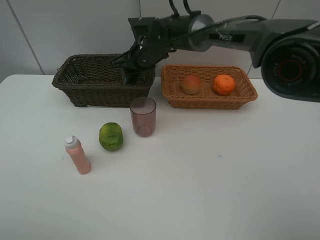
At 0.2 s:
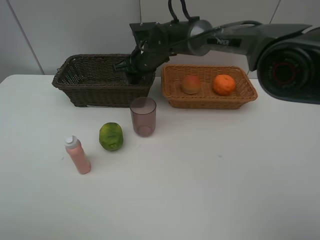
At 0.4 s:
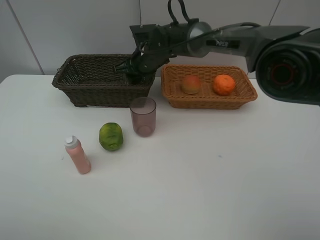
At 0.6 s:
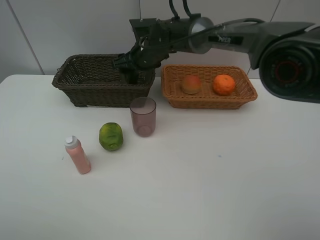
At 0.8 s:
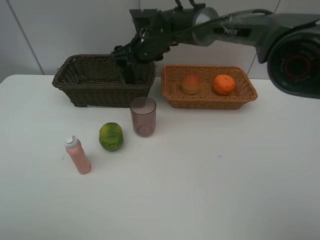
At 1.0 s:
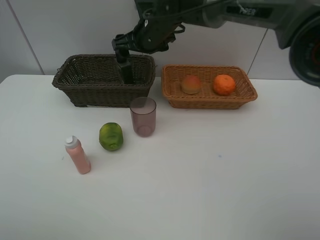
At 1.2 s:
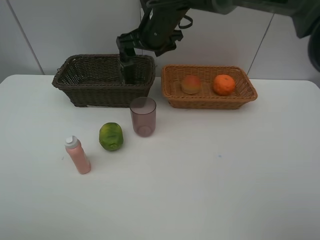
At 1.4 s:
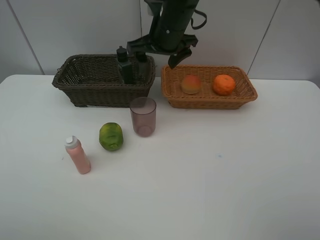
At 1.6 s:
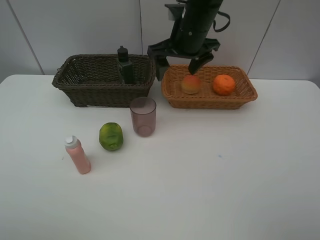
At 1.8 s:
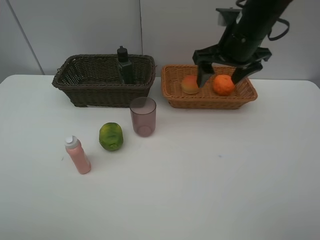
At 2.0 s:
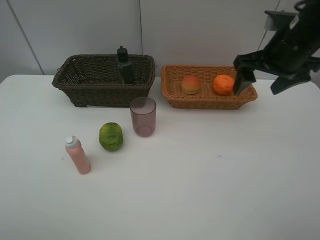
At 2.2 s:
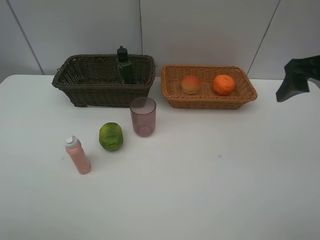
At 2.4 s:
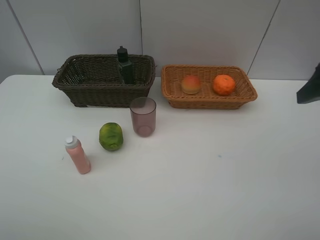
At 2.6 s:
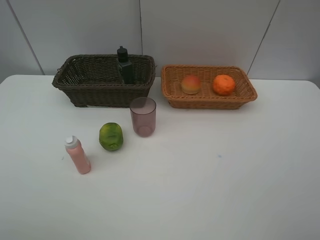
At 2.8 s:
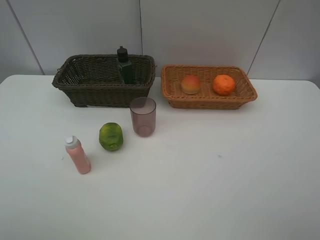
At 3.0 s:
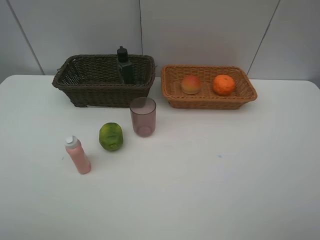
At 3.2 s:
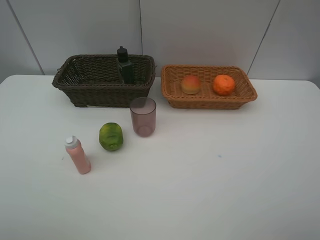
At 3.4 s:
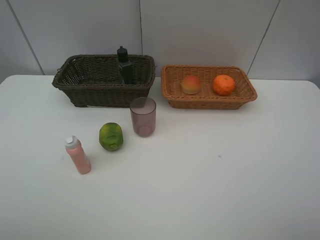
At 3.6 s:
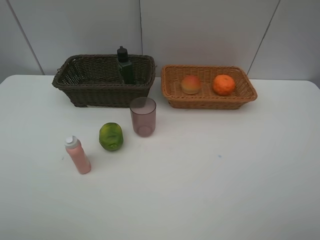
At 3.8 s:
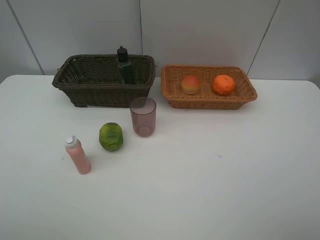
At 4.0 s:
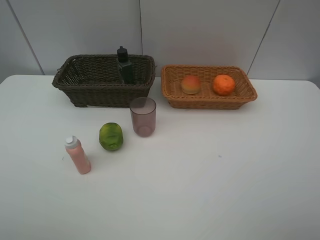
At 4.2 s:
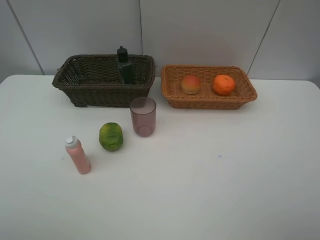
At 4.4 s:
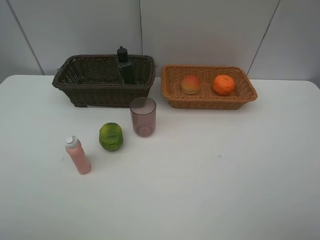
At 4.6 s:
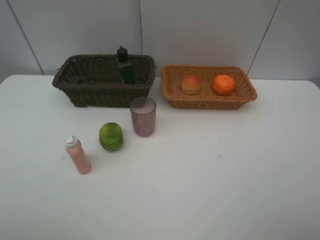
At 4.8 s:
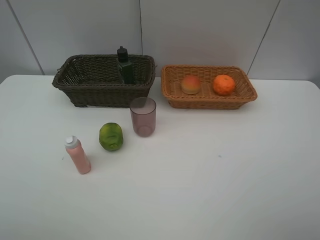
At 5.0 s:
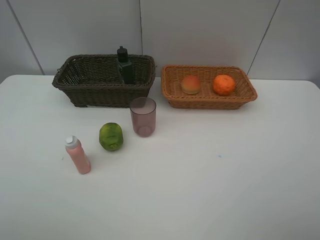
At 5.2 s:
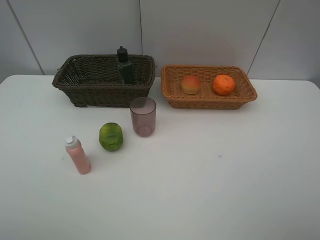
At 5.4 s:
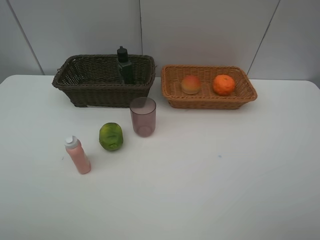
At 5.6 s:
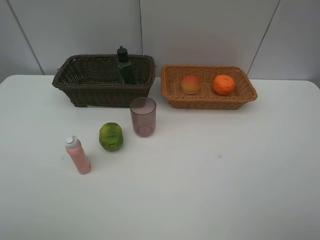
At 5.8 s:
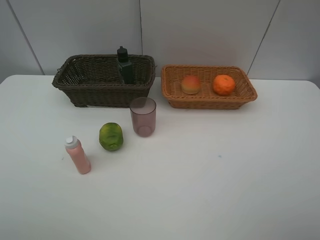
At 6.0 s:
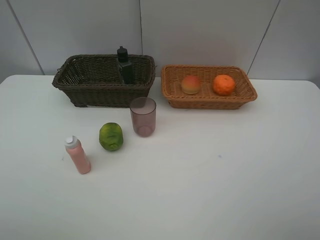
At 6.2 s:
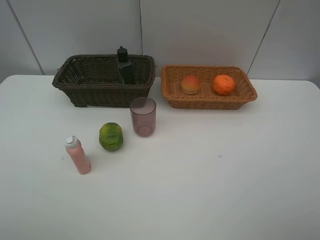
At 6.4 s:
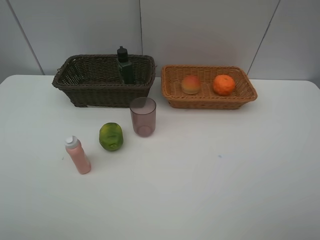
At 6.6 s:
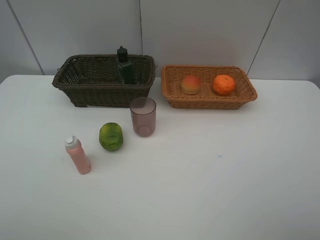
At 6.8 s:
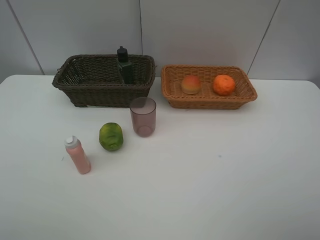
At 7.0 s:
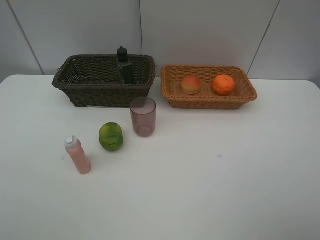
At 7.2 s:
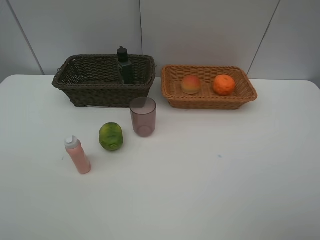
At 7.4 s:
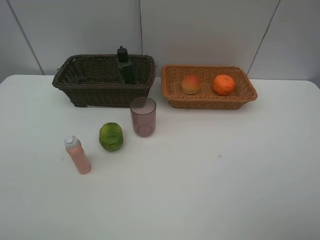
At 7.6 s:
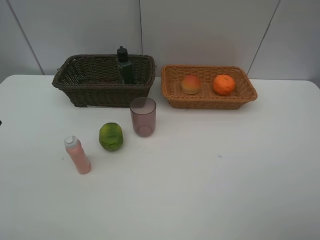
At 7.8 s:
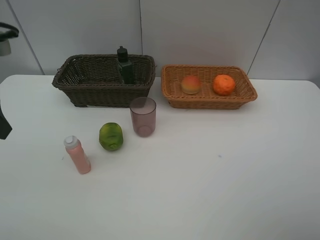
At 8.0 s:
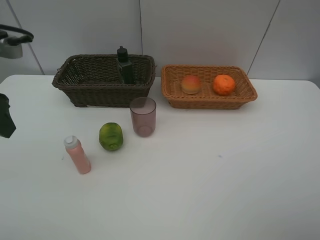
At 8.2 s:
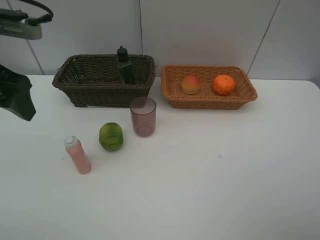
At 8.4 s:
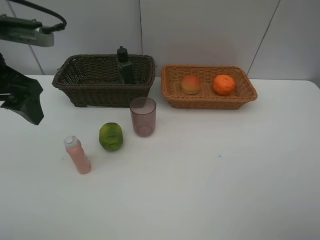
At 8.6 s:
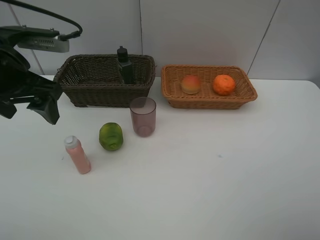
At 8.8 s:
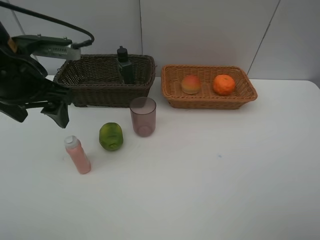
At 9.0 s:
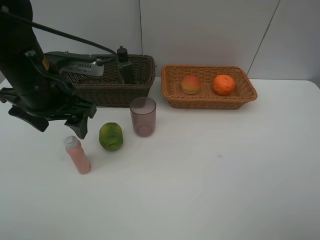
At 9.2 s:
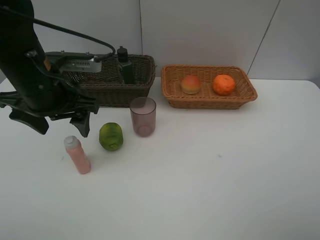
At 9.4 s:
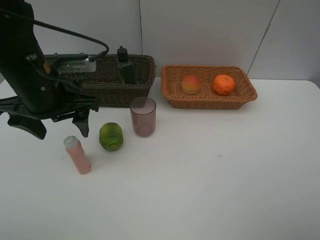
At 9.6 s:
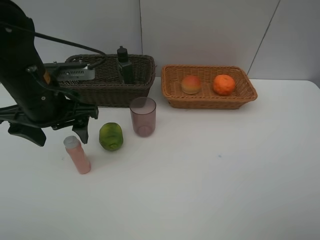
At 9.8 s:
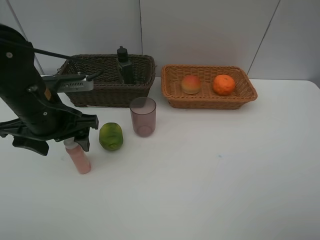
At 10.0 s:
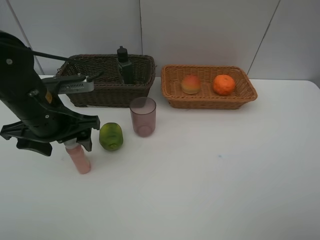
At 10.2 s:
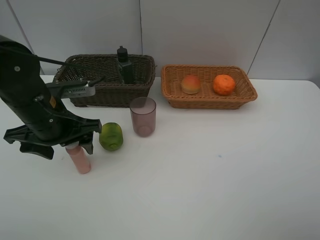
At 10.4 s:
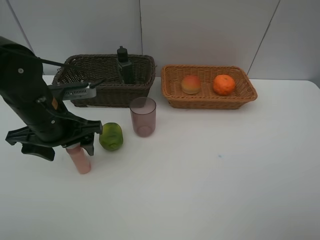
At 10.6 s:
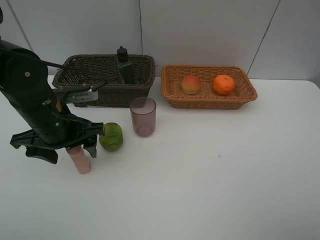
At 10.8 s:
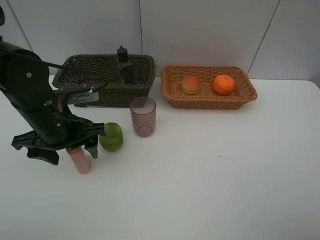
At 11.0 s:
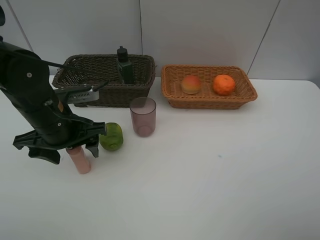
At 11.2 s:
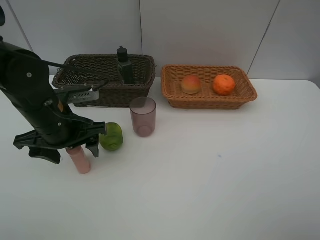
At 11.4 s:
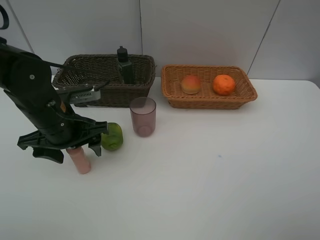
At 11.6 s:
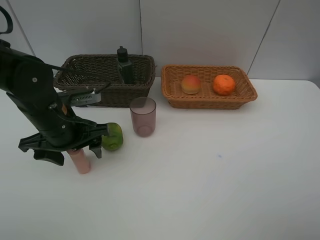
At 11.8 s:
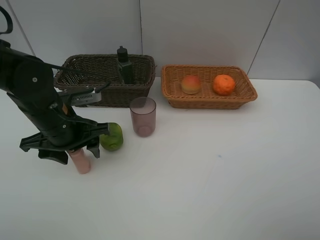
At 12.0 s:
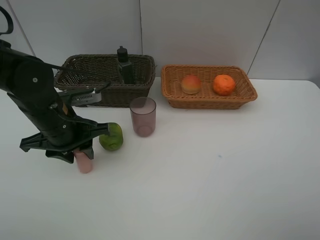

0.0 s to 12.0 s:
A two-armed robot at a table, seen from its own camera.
Task of the whole recording: place multiple objects separately in different baskets.
0.0 to 1.6 s: The right gripper goes some 15 cm to the right, upward and backward, and opens up.
1.6 to 3.0 s: The right gripper heads backward and to the right, covering about 40 cm.
4.4 to 6.0 s: Both grippers stay about where they are.
7.6 to 9.0 s: The left gripper moves to the right, forward and downward, roughly 15 cm.
9.0 to 10.4 s: The left gripper heads downward, covering some 5 cm.
10.4 to 12.0 s: The left gripper closes up.

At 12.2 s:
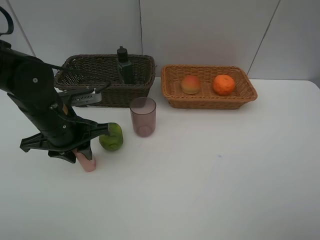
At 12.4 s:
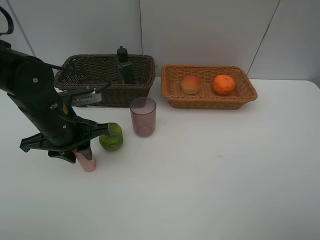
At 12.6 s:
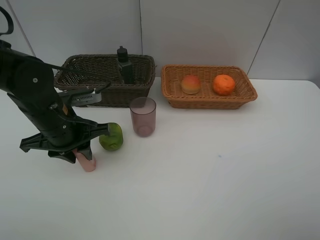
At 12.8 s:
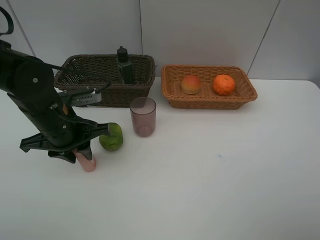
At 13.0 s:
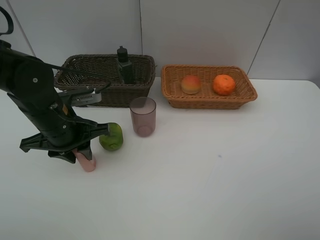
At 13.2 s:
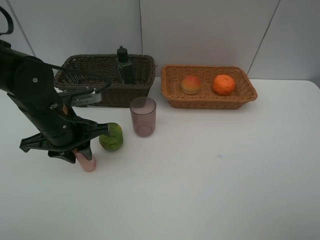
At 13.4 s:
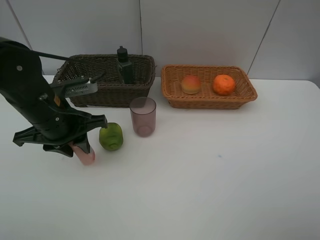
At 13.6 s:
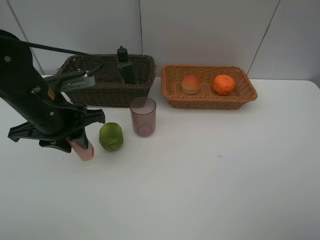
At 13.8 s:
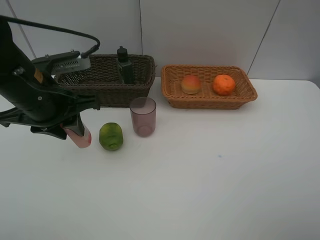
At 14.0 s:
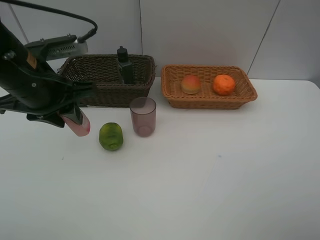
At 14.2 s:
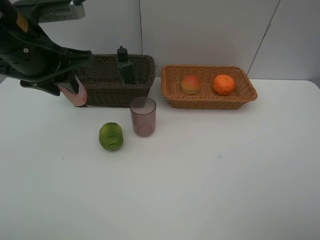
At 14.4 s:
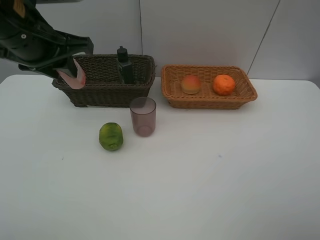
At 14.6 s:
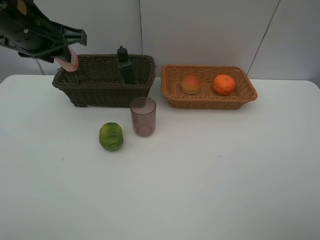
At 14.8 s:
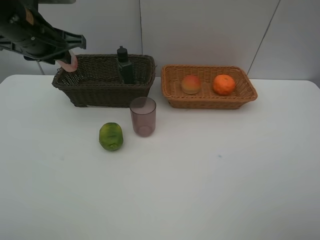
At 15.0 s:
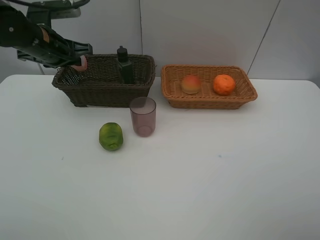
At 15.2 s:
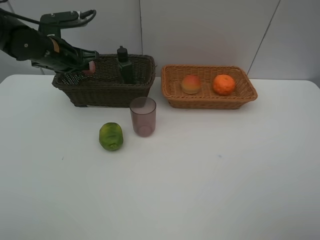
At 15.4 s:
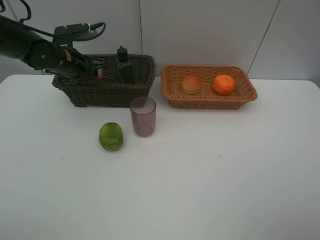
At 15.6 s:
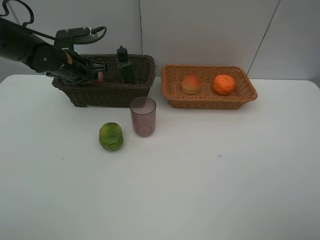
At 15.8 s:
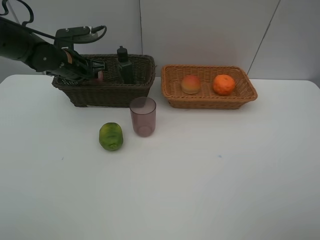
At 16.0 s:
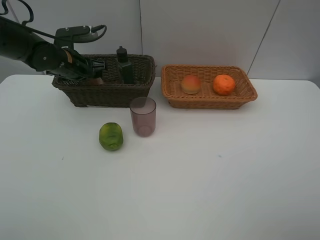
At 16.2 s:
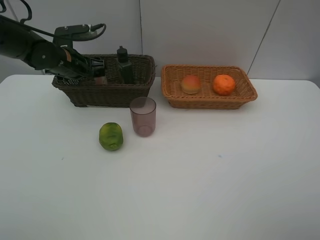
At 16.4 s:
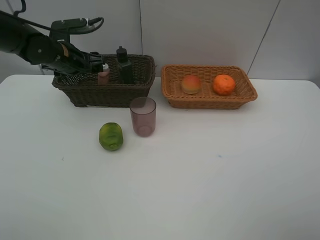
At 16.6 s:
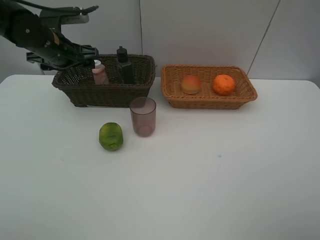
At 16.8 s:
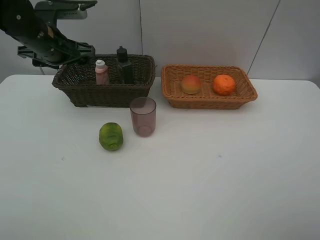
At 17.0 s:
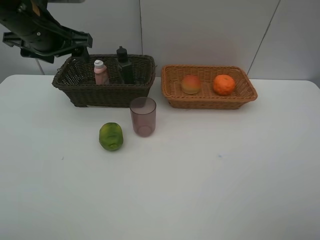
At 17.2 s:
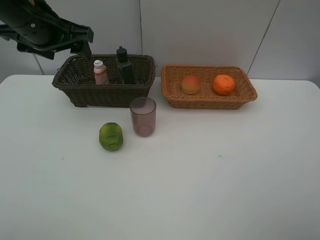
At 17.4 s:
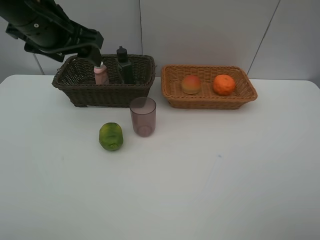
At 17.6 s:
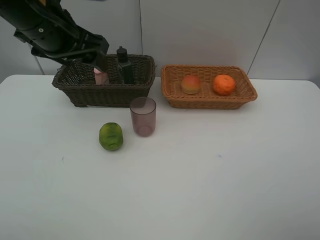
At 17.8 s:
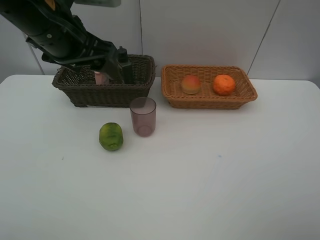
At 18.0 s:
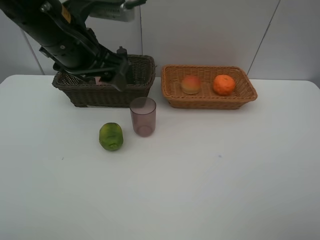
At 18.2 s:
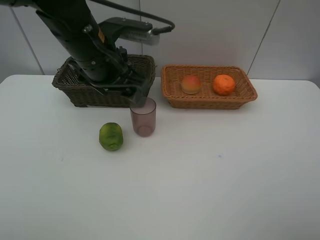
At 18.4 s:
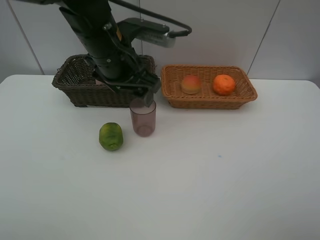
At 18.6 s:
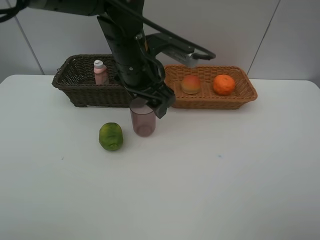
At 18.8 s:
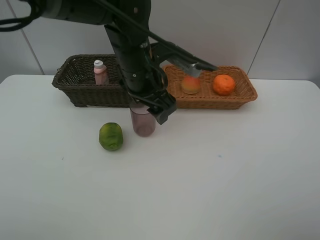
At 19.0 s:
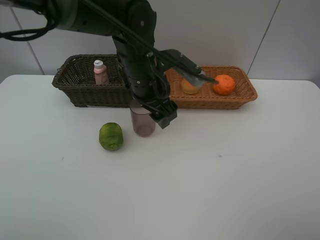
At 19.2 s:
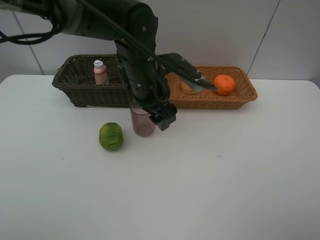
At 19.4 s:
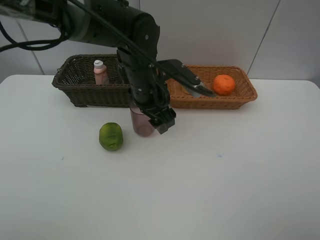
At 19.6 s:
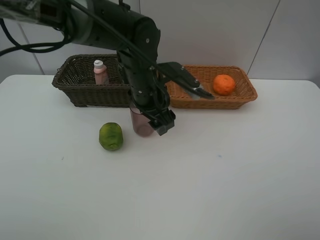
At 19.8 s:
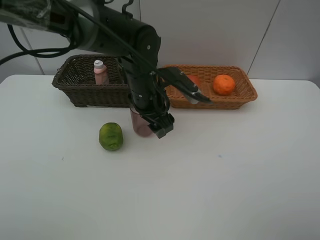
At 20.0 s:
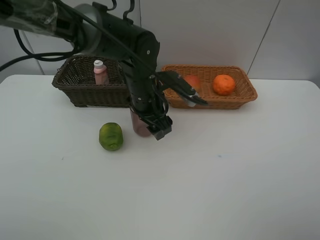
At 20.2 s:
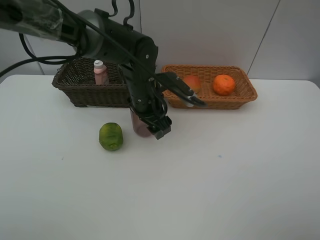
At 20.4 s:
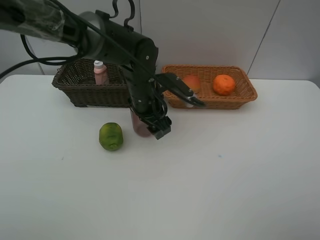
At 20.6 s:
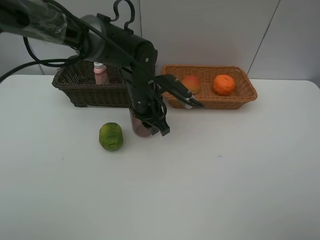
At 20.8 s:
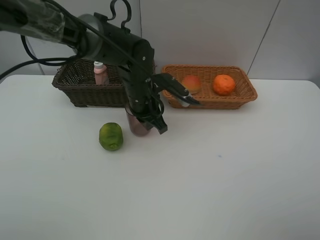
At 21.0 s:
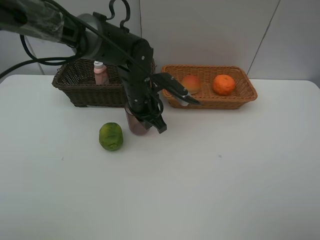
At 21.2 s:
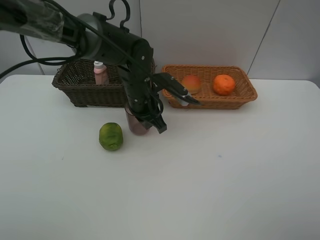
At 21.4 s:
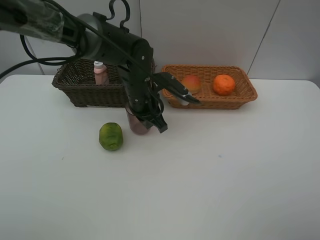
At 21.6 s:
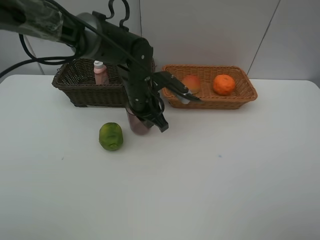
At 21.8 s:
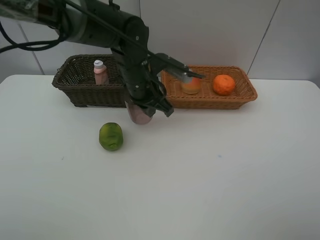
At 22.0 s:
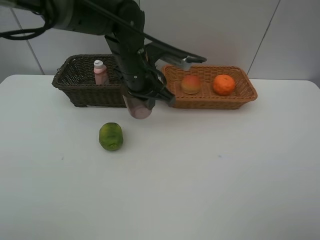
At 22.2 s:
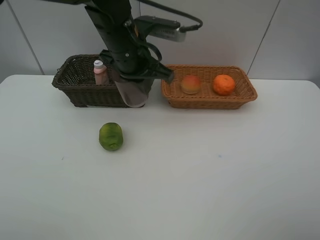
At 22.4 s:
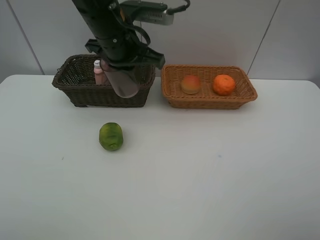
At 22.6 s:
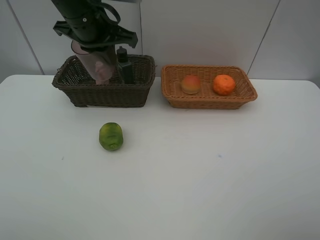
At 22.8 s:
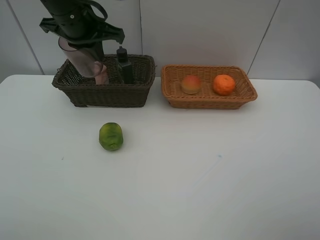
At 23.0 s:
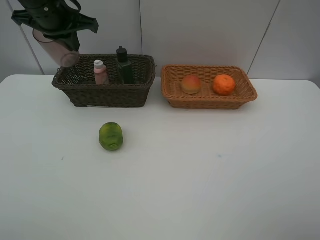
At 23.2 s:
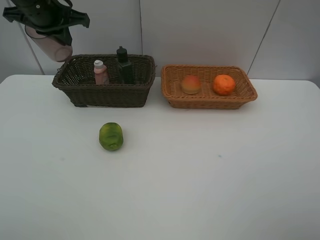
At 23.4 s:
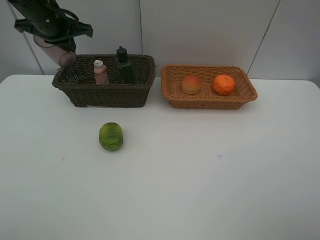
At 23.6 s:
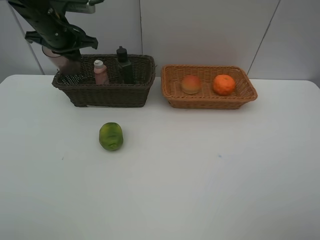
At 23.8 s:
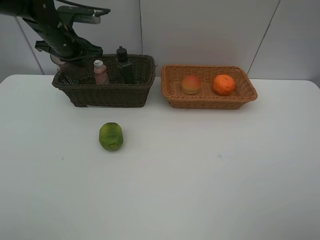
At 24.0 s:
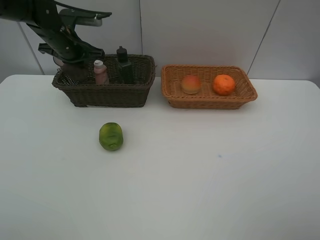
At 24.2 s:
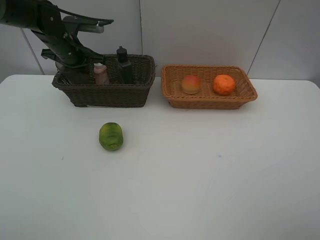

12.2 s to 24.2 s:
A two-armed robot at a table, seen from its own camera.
Task of the whole recording: place multiple objects separately in different baskets.
12.2 to 13.8 s: The left gripper is displaced upward by about 10 cm.
13.8 to 15.2 s: The left gripper moves forward, about 15 cm.
15.2 to 16.6 s: The left gripper opens its fingers.
16.6 to 18.2 s: The left gripper is displaced to the right and backward by roughly 15 cm.
18.2 to 19.8 s: The left gripper is displaced downward and to the right by about 10 cm.
19.8 to 21.2 s: The left gripper closes its fingers.
21.2 to 22.6 s: The left gripper is displaced upward and to the left by roughly 20 cm.
22.6 to 24.2 s: The left gripper heads downward, forward and to the left, covering approximately 15 cm.
